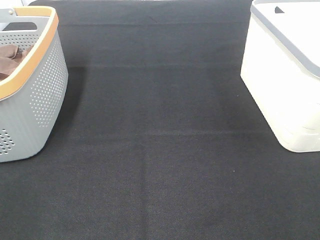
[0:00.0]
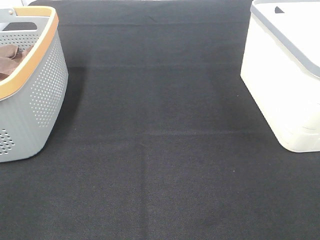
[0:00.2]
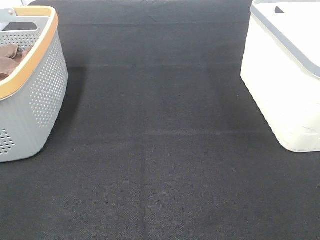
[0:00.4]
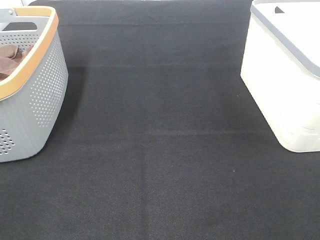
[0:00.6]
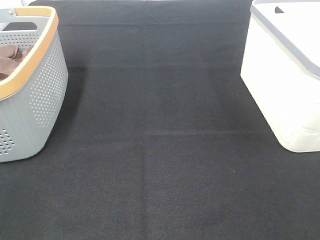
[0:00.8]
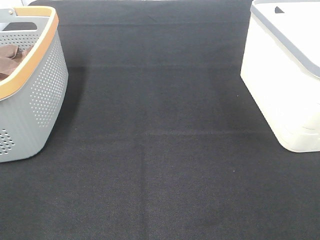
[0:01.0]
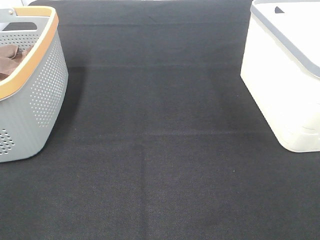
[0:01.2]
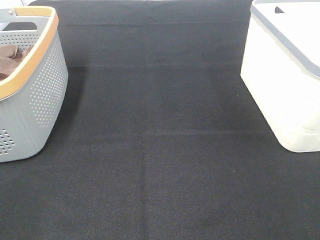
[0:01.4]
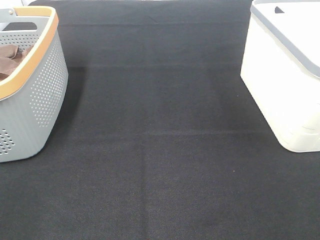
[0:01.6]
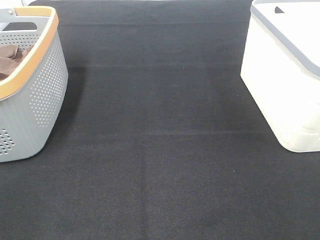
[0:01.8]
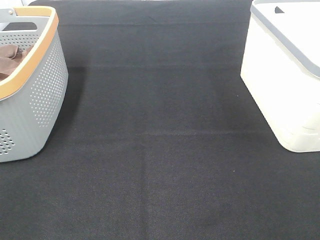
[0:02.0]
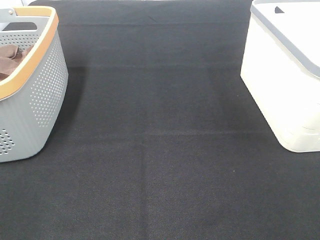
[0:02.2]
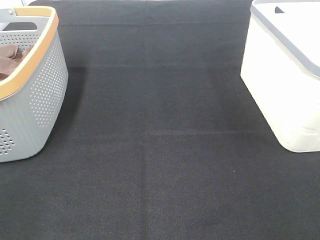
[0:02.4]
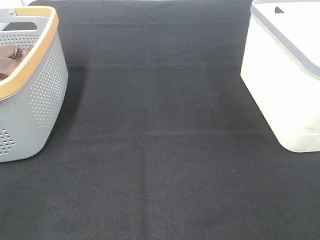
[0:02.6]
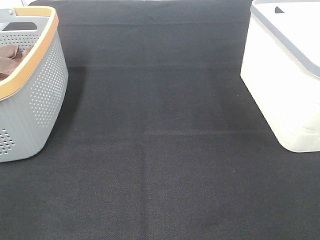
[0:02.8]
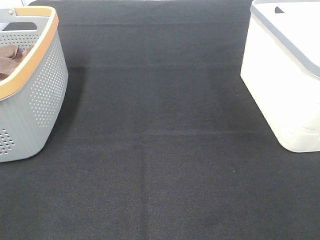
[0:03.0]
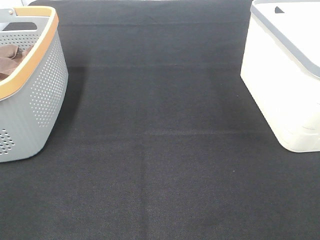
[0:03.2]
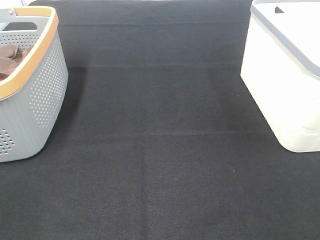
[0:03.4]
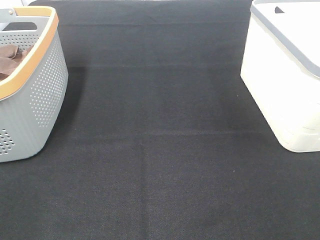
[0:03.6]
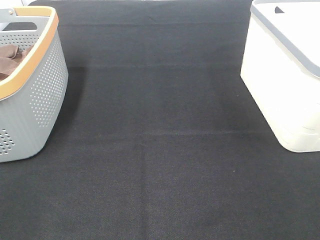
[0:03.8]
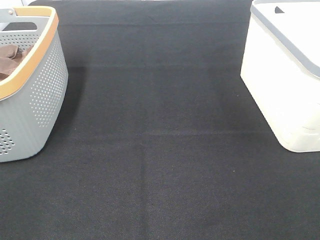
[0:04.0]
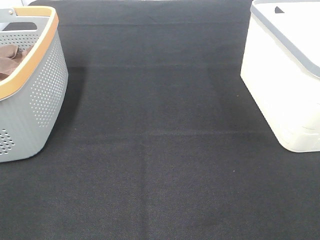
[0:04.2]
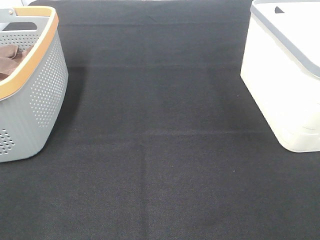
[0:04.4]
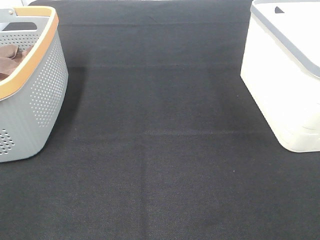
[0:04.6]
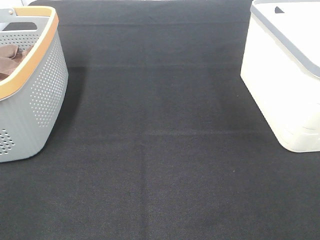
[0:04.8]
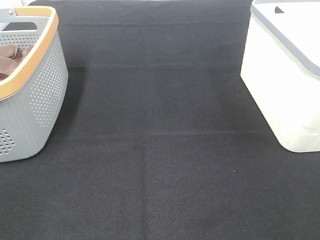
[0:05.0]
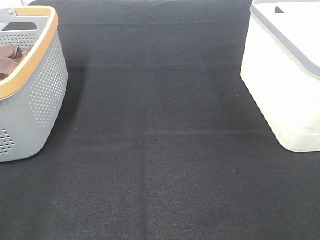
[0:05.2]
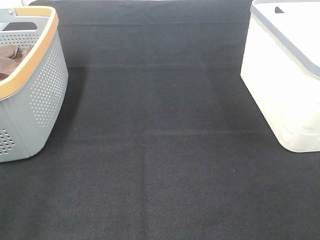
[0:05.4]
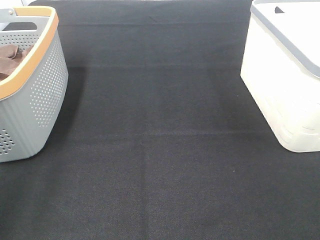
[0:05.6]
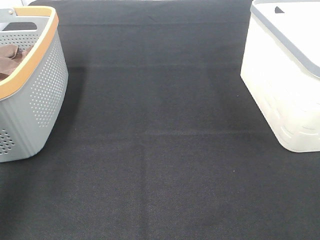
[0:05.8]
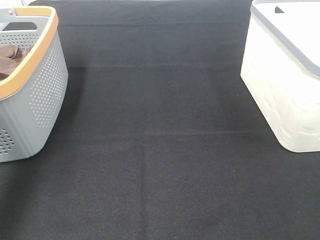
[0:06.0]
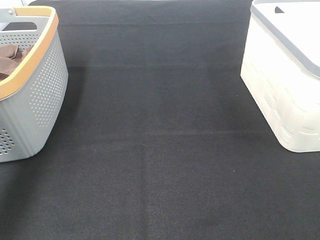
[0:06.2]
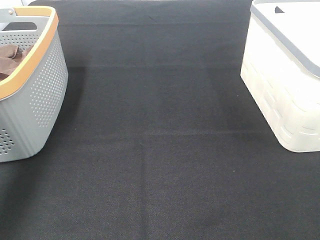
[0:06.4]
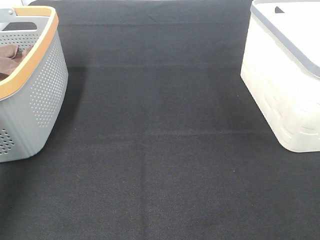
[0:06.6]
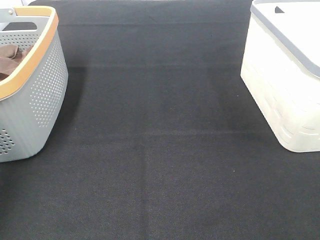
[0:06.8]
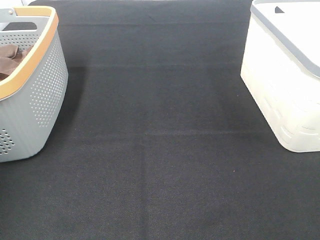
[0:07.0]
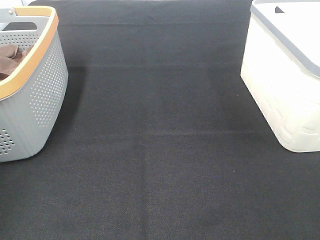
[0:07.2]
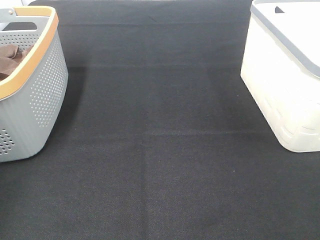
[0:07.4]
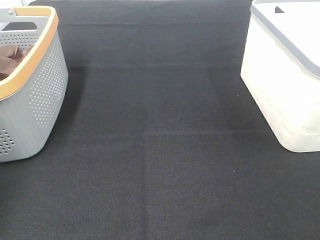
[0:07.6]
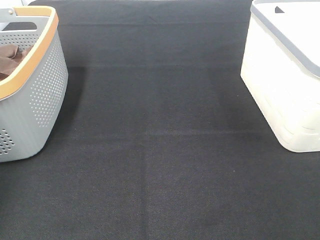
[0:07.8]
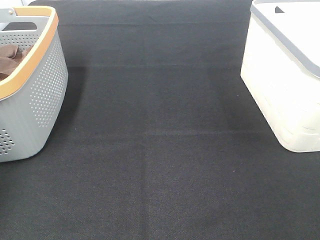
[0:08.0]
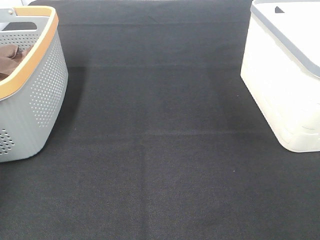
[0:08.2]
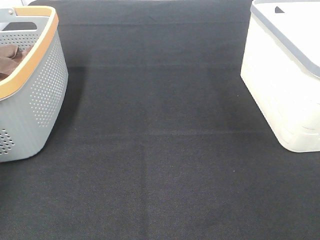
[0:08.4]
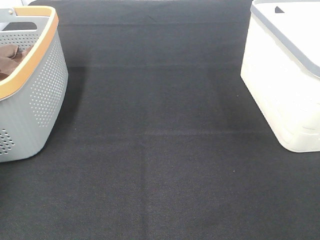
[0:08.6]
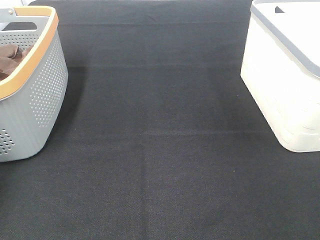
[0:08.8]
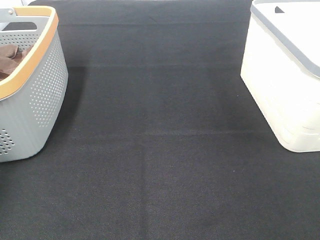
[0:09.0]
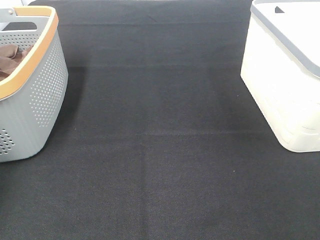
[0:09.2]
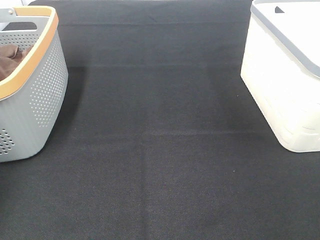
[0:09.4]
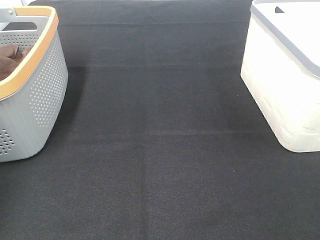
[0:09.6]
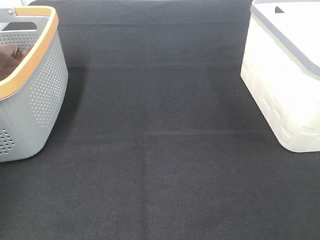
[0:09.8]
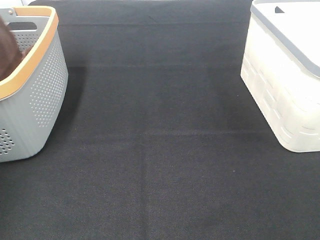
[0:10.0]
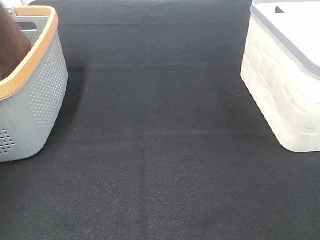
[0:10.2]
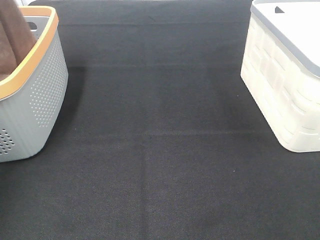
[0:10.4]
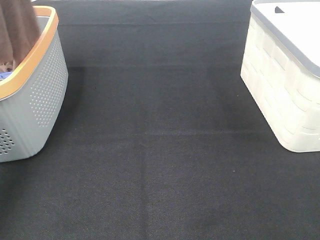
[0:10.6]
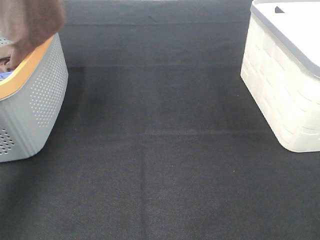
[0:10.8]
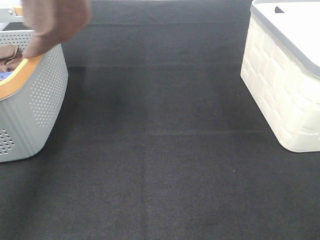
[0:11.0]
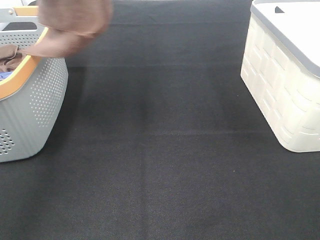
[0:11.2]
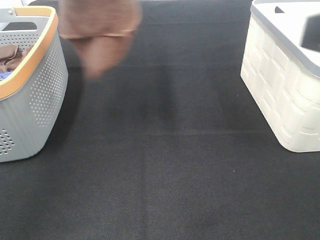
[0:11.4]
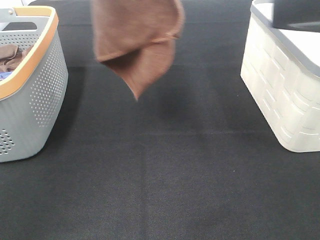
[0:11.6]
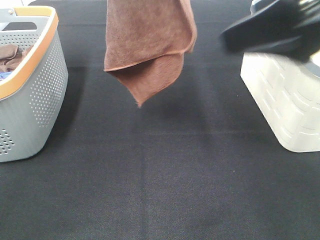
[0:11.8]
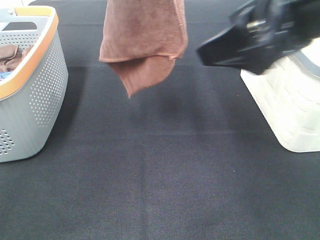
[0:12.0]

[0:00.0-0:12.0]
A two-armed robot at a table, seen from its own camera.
Task of the whole recording: Remove the towel and place it.
Step, 0:09.4 to 0:11.6: Right hand: grab a corner of the brown towel and straighten it.
0:00.0 to 0:04.4: The two grippers keep their place.
0:04.4 to 0:06.0: The left gripper moves forward, some 25 cm.
0:06.0 to 0:07.6: The left gripper travels forward, to the left and downward by roughly 25 cm.
0:09.0 to 0:10.4: The left gripper shifts some 25 cm upward.
0:10.4 to 0:12.0: The right gripper is displaced forward and to the left by some 25 cm. Meanwhile the left gripper goes about 25 cm to the right.

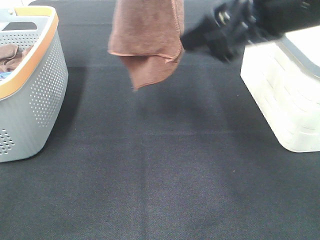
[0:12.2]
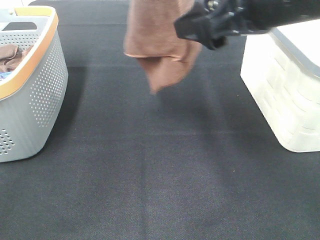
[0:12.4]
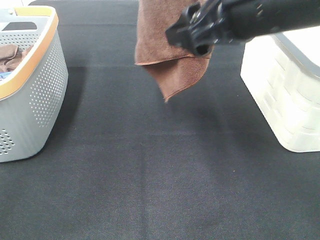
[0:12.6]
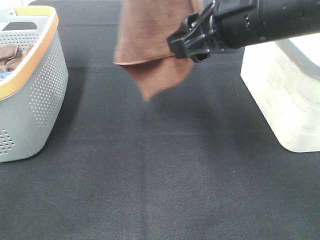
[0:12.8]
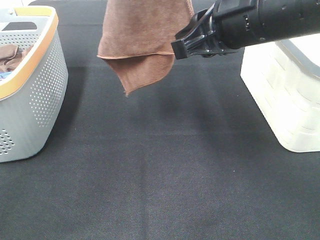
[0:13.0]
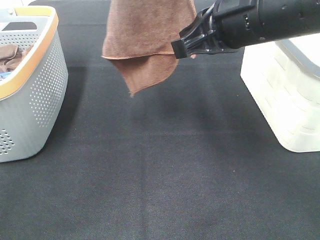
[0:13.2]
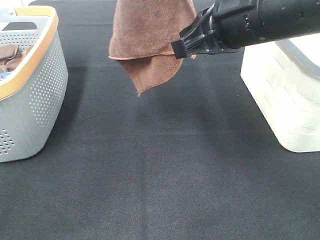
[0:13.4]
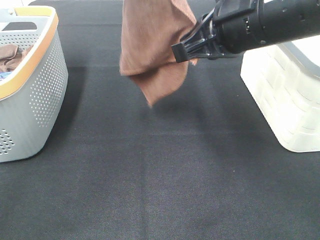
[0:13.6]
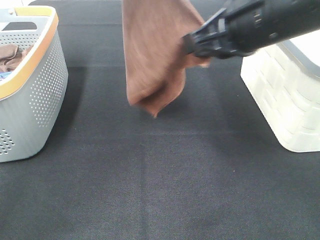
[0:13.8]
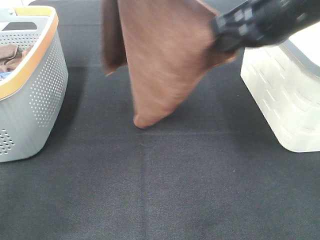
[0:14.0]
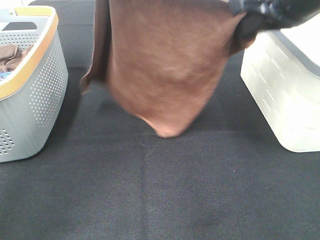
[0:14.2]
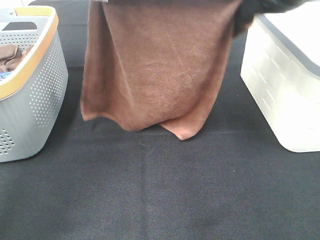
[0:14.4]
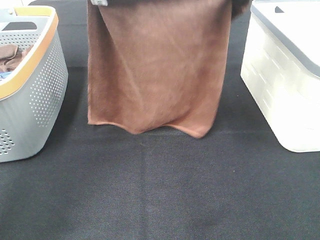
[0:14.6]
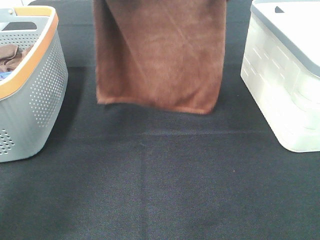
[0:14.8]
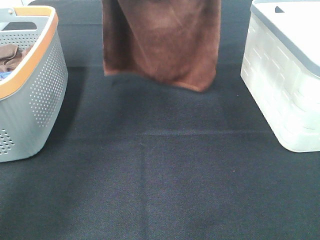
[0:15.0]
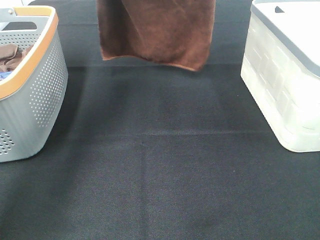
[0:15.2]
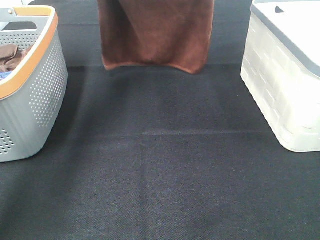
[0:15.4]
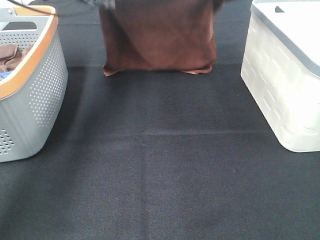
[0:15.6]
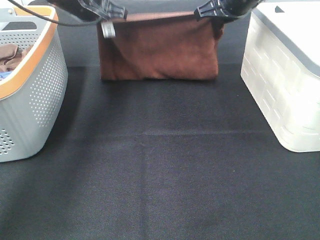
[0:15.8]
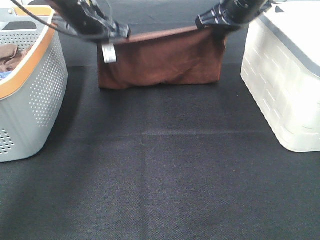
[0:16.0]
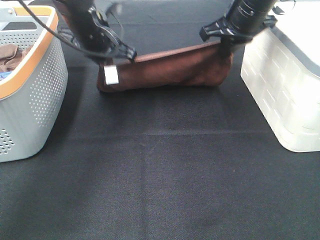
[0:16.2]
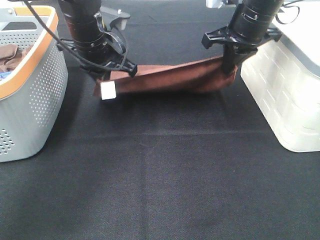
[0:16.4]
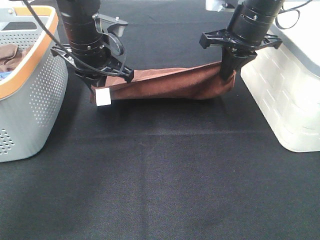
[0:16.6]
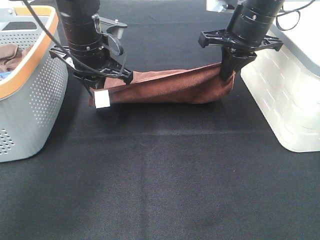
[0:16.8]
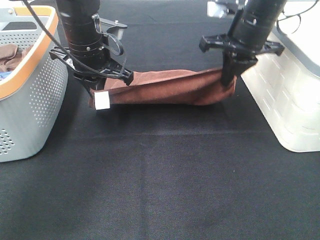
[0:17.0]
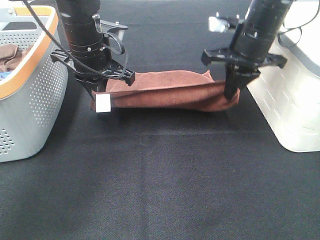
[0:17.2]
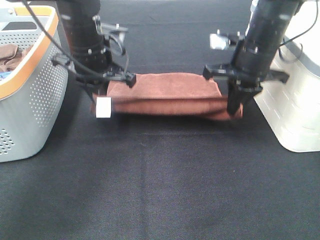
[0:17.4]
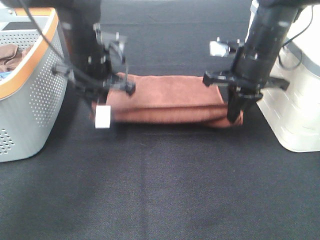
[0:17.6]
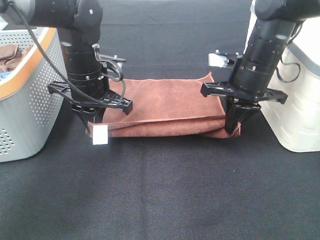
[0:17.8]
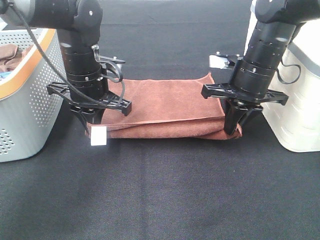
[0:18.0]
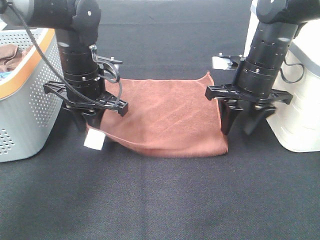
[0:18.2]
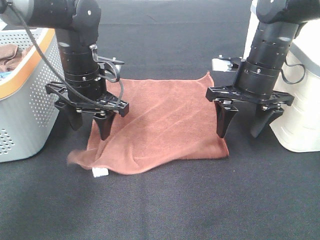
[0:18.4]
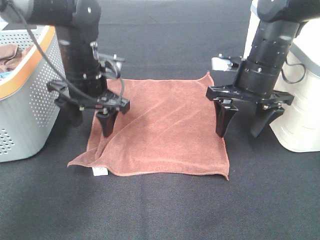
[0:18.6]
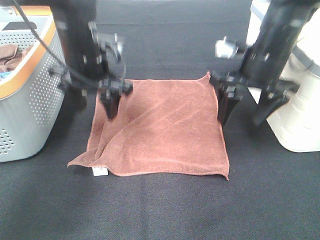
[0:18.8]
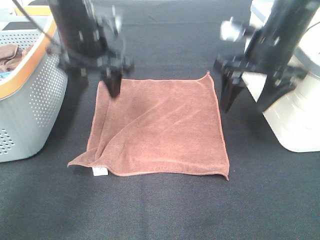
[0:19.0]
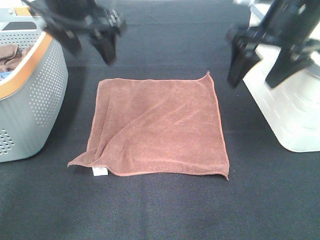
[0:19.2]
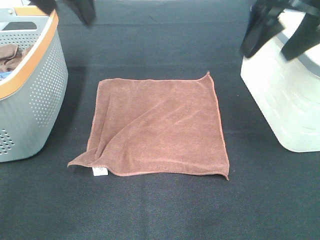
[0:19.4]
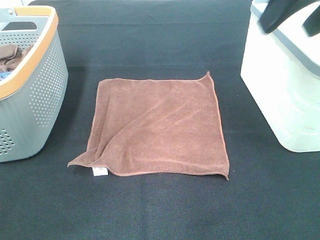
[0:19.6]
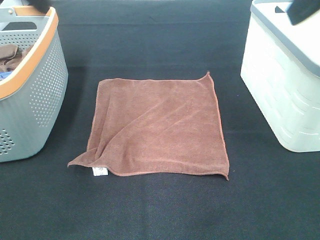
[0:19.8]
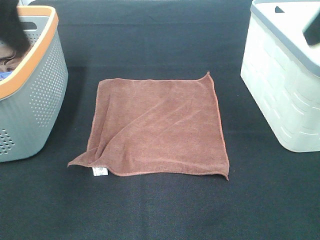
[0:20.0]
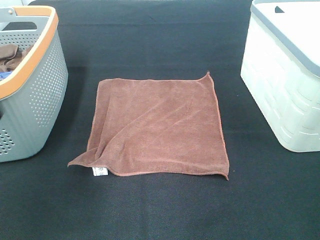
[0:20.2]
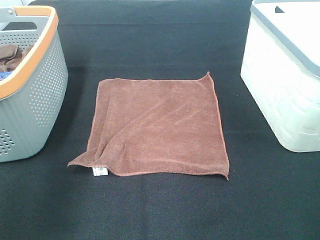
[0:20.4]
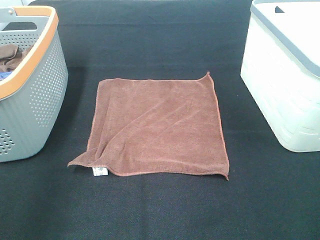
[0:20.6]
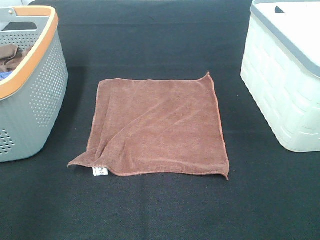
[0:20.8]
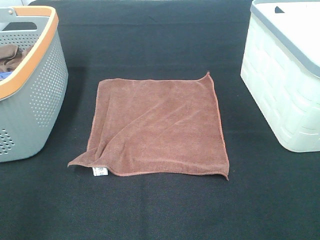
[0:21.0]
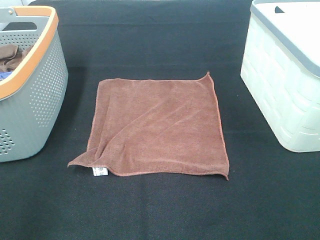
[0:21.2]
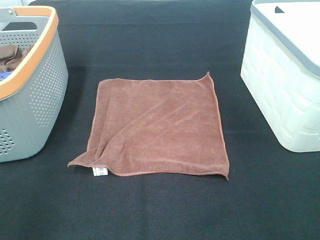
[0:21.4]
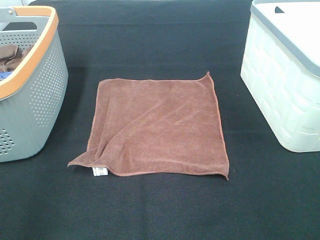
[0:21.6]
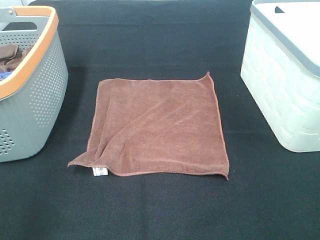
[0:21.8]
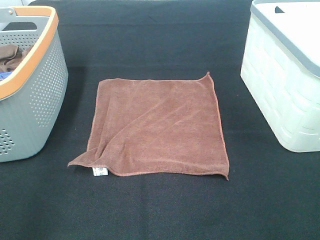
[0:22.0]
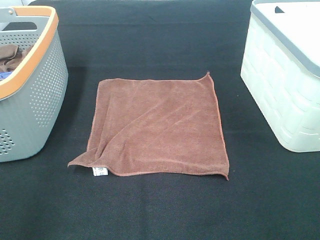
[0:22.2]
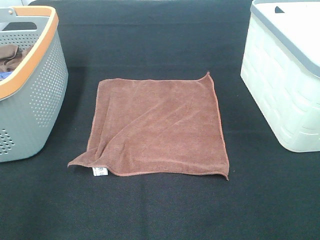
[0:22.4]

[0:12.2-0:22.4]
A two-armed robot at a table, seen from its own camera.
Task of the whole recording: Remove the towel and place it.
Step, 0:12.2 to 0:14.6: Left hand: spread the brown towel flat on the table.
Step, 0:12.2 to 0:14.6: Right hand: spread the brown towel flat on the table.
0:12.2 to 0:13.6: The right gripper moves approximately 5 cm, and closes its fingers.
0:13.6 to 0:15.2: The right gripper is displaced forward by some 20 cm. Meanwhile the left gripper shifts roughly 20 cm downward and forward.
0:15.2 to 0:16.6: The right gripper heads downward, covering about 10 cm, while the left gripper is displaced downward and backward by about 15 cm.
0:16.6 to 0:18.0: The right gripper moves downward, some 10 cm. The left gripper changes place by roughly 5 cm.
0:18.0 to 0:19.4: The right gripper goes roughly 20 cm upward and backward, and opens. Meanwhile the left gripper travels upward by some 20 cm, and opens up.
0:19.4 to 0:21.0: The left gripper travels backward, to the left and downward by roughly 30 cm. Meanwhile the right gripper moves backward, approximately 25 cm.
